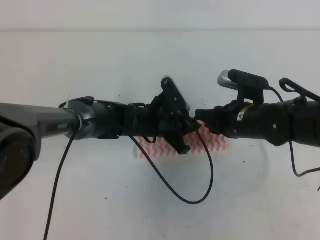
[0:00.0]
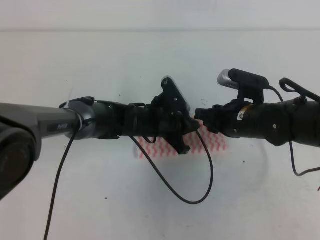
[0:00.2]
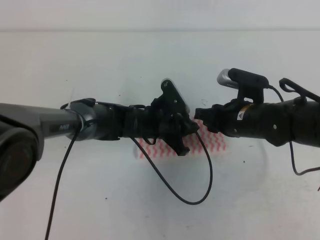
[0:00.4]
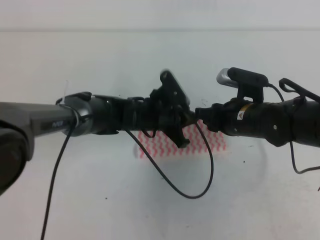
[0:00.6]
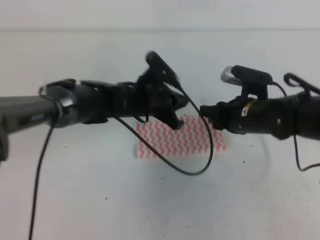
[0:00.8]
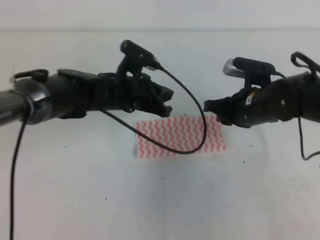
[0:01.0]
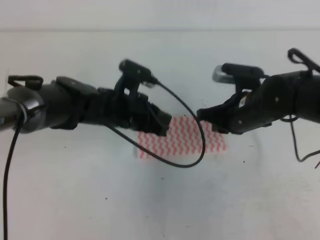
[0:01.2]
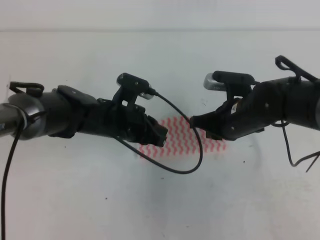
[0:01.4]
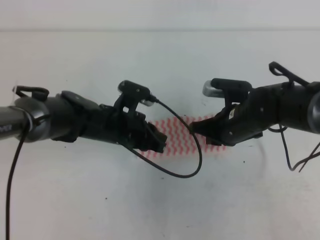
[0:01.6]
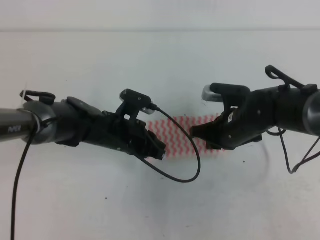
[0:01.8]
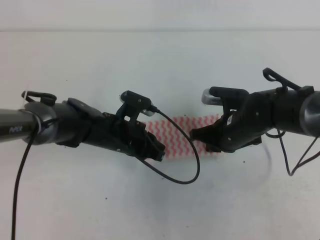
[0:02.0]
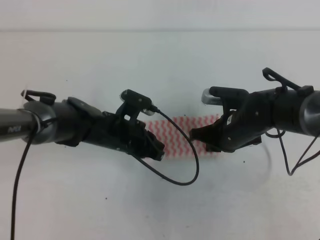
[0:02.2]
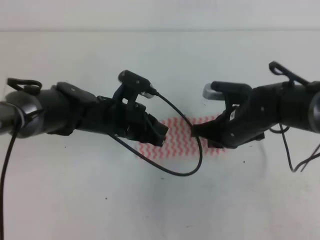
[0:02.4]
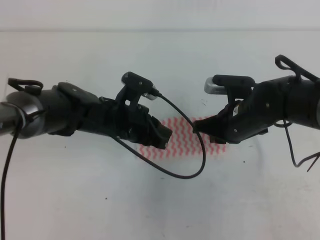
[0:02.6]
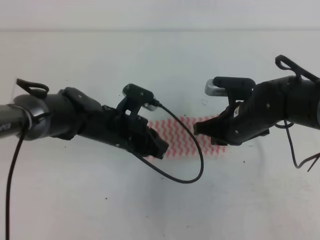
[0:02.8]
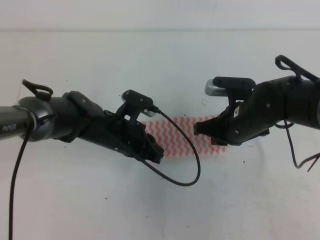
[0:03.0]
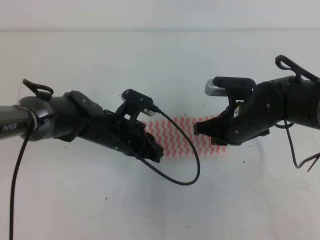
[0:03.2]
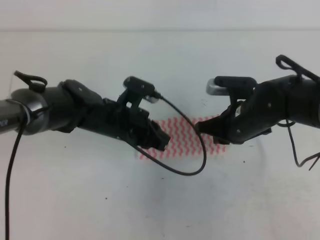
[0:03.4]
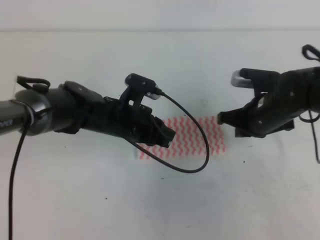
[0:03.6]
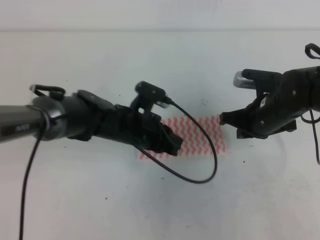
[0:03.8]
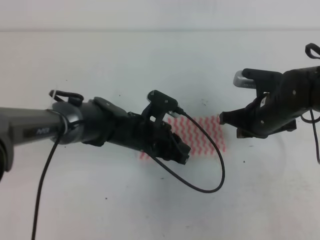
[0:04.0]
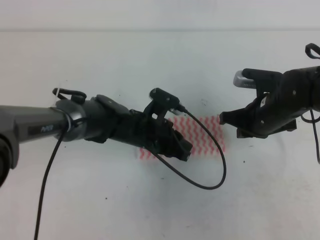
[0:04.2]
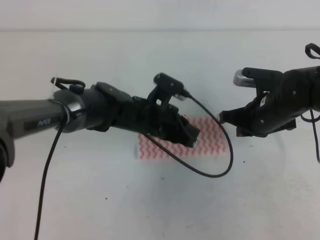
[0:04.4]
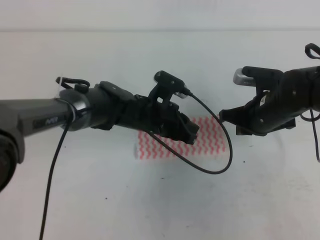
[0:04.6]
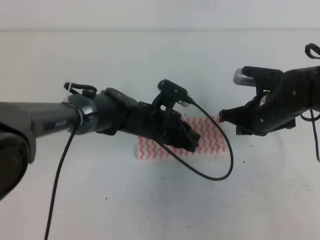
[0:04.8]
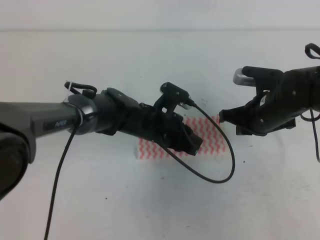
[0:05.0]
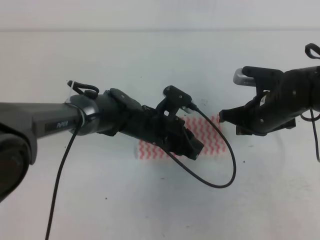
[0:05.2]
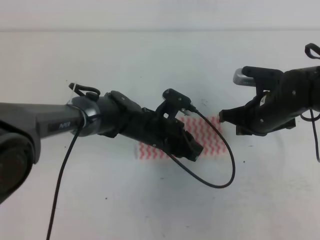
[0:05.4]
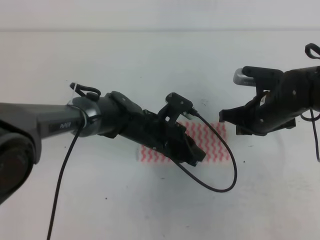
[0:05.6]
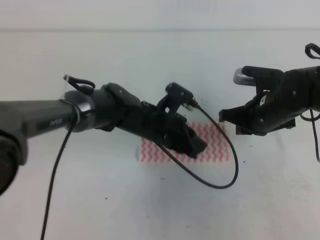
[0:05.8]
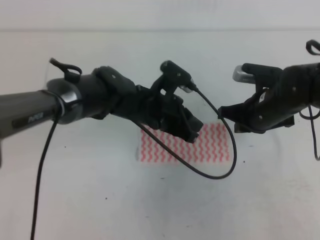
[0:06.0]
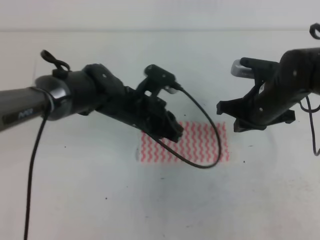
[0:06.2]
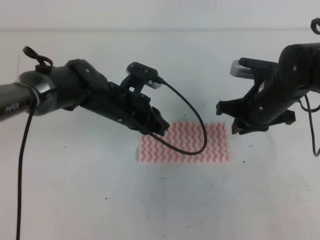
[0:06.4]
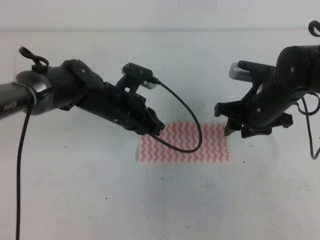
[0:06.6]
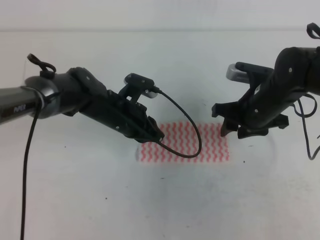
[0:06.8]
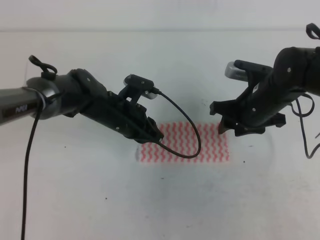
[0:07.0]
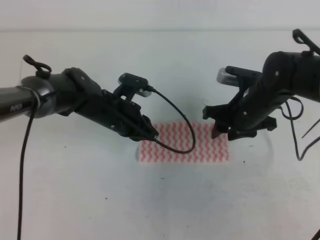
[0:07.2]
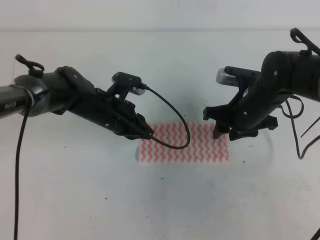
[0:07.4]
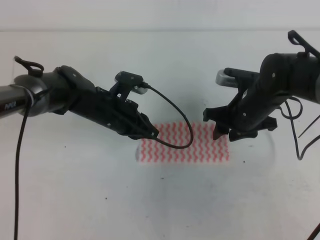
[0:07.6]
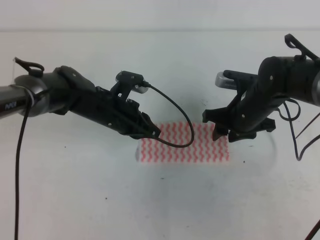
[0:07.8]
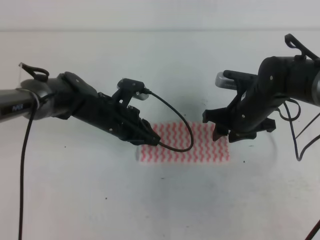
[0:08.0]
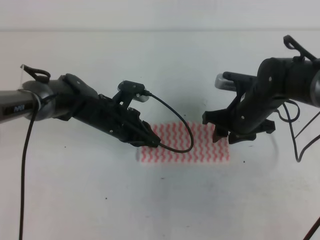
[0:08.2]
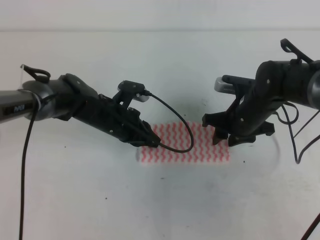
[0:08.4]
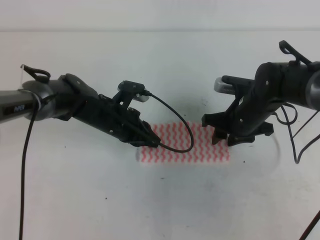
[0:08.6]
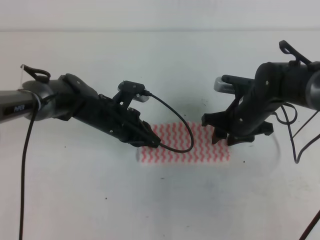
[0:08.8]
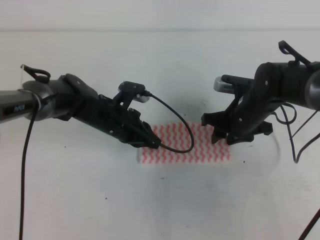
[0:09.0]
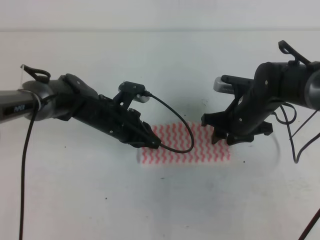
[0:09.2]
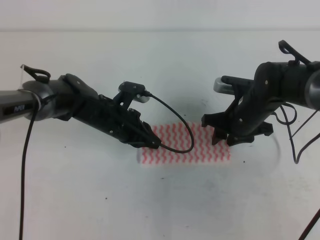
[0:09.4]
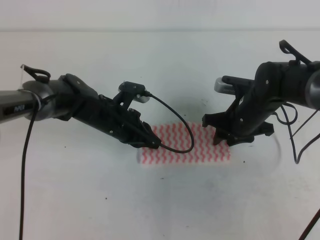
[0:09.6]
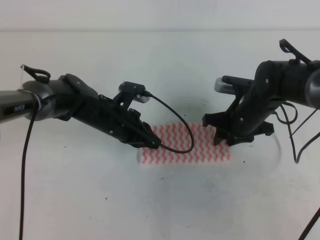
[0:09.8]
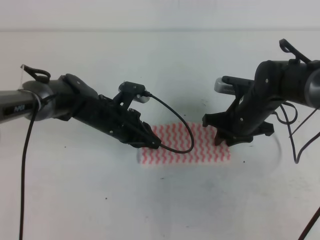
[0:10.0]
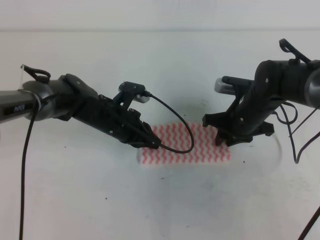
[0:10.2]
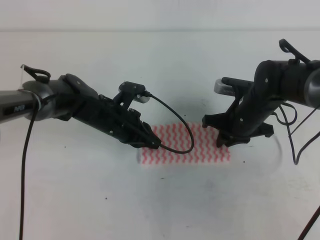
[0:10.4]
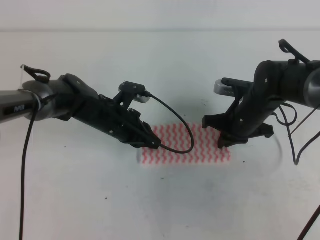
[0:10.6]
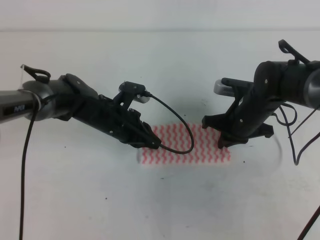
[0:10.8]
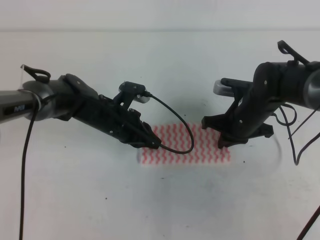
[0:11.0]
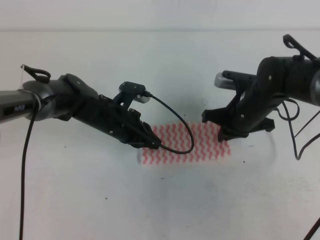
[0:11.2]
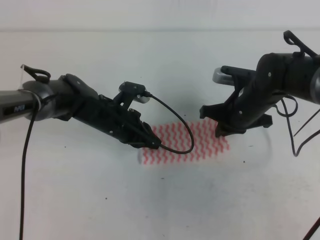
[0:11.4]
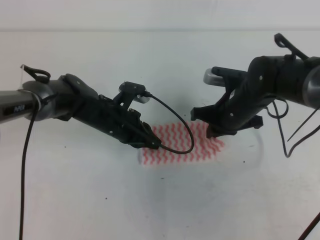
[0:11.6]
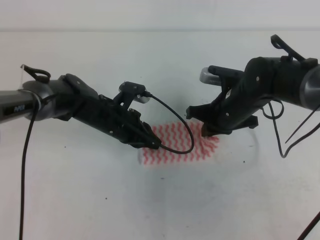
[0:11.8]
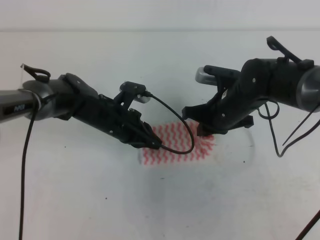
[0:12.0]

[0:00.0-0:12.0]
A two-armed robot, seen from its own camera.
Step, 0:00.0 to 0:05.8: Fold the towel from right to left with the right gripper.
Step, 0:06.0 to 0:10.6: Tidy up the towels.
0:00.0 to 0:01.6: The right gripper closes up, while the left gripper moves to the left, roughly 5 cm.
0:01.6 to 0:03.0: The grippers move only a little.
0:03.0 to 0:04.4: The left gripper is displaced to the right by about 5 cm.
0:04.4 to 0:06.0: The grippers move only a little.
0:06.0 to 0:07.6: The right gripper opens its fingers; the left gripper shifts some 5 cm to the left.
0:07.6 to 0:09.0: There are only small adjustments of the grippers.
0:09.0 to 0:10.4: The right gripper closes its fingers.
0:10.4 to 0:12.0: The right gripper changes place by roughly 5 cm, and closes its fingers.

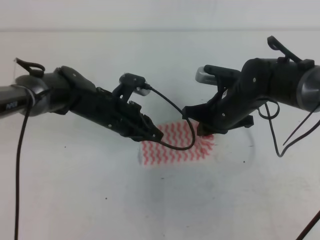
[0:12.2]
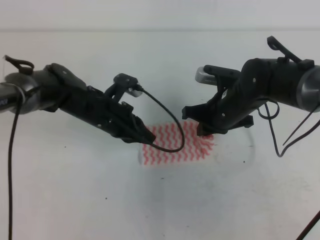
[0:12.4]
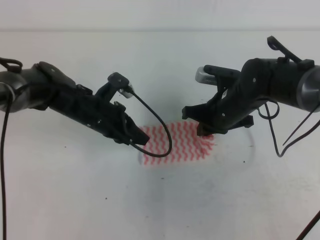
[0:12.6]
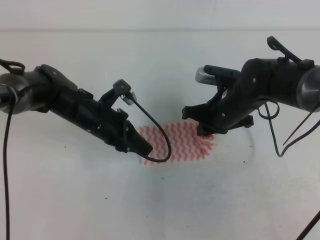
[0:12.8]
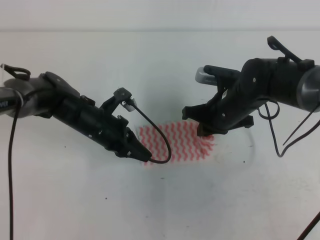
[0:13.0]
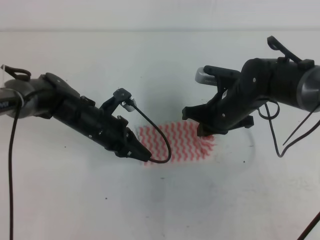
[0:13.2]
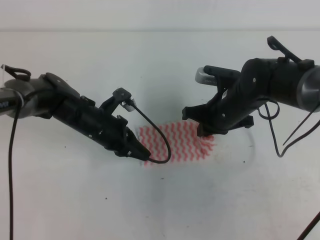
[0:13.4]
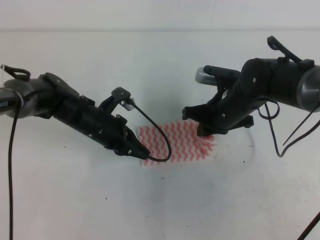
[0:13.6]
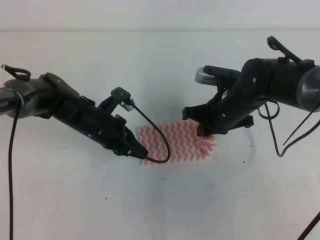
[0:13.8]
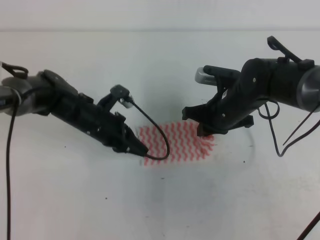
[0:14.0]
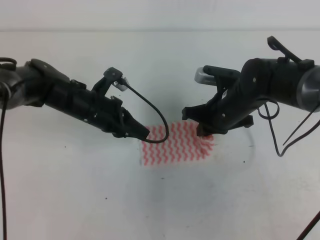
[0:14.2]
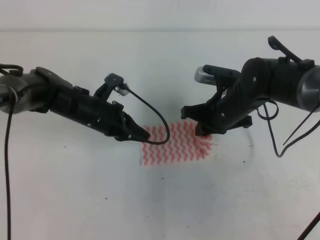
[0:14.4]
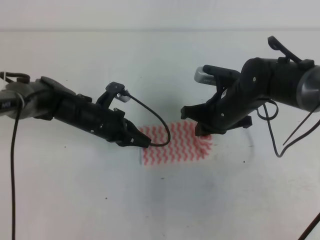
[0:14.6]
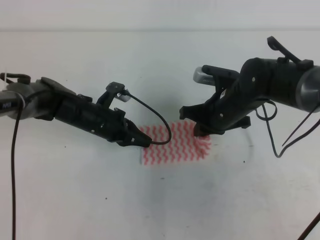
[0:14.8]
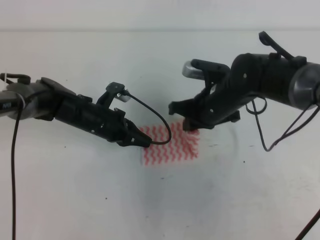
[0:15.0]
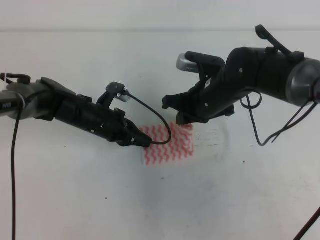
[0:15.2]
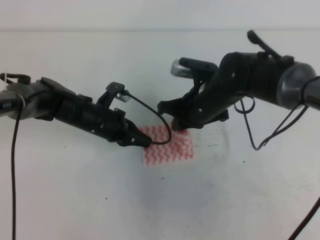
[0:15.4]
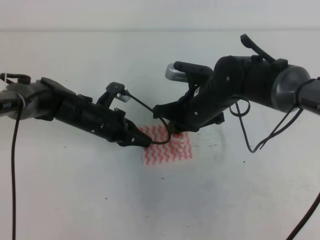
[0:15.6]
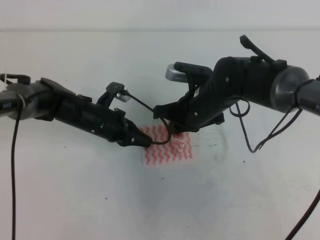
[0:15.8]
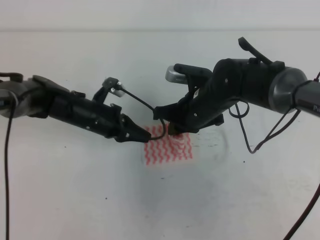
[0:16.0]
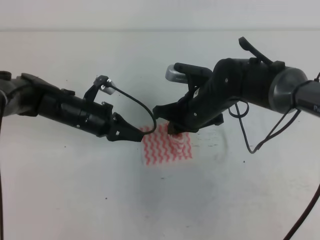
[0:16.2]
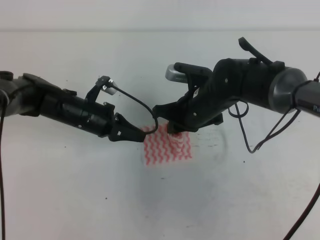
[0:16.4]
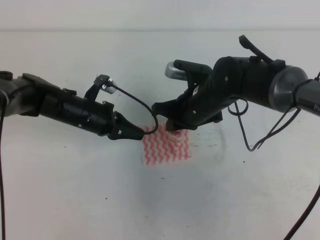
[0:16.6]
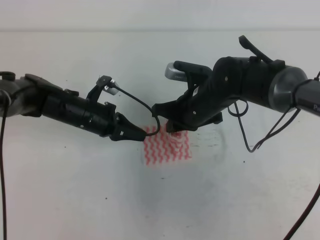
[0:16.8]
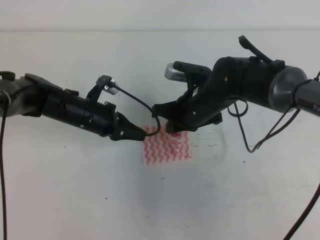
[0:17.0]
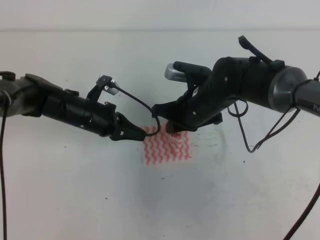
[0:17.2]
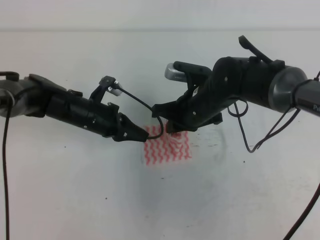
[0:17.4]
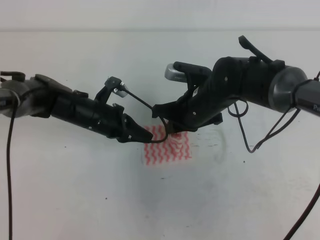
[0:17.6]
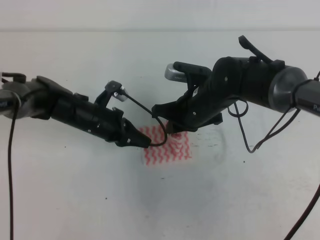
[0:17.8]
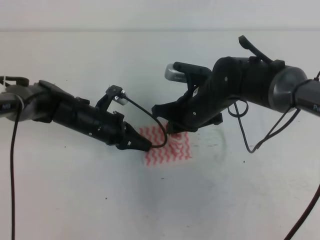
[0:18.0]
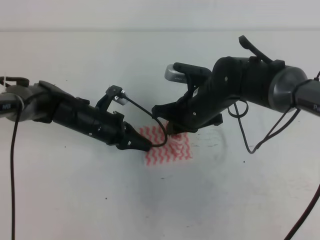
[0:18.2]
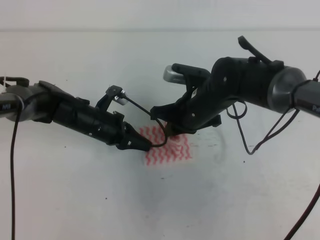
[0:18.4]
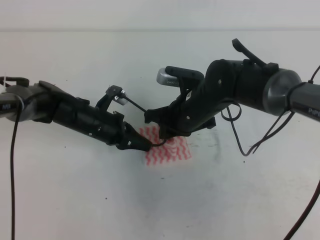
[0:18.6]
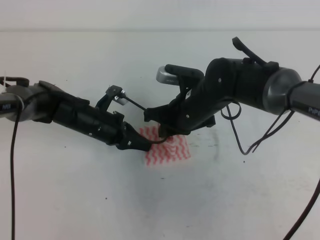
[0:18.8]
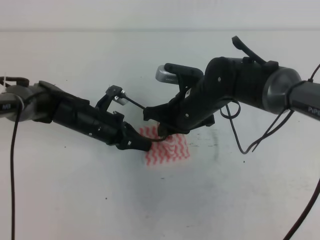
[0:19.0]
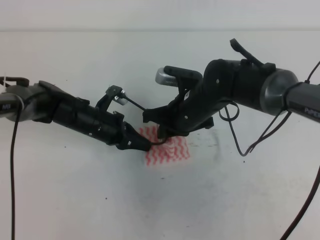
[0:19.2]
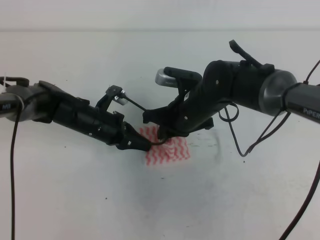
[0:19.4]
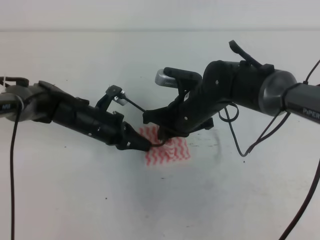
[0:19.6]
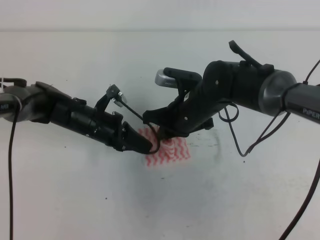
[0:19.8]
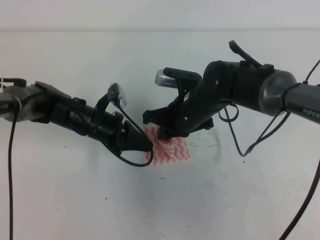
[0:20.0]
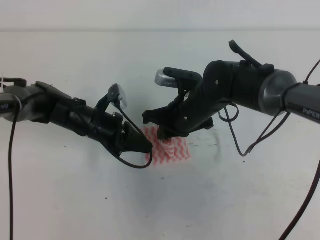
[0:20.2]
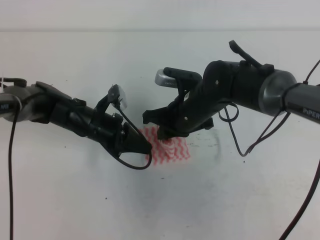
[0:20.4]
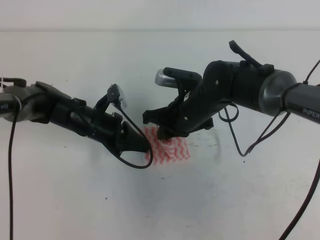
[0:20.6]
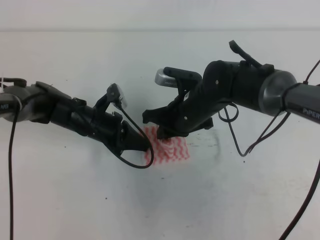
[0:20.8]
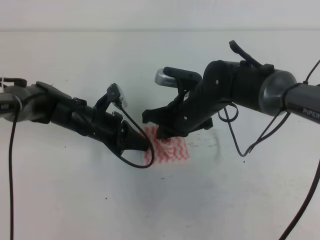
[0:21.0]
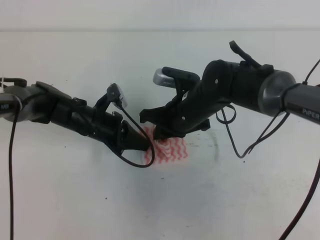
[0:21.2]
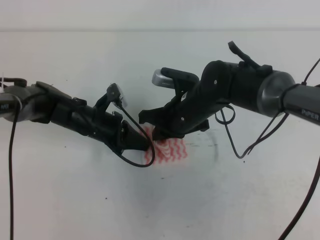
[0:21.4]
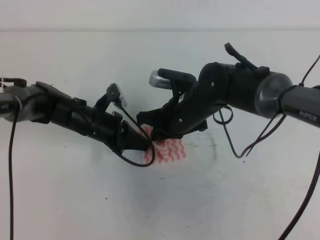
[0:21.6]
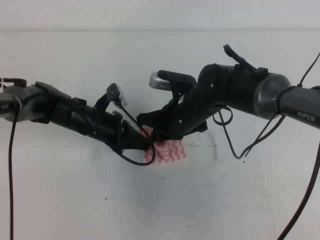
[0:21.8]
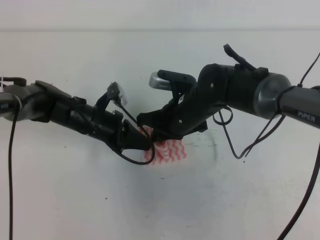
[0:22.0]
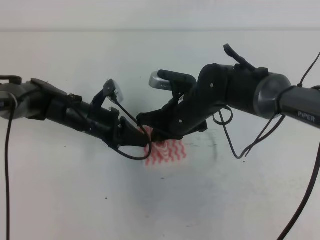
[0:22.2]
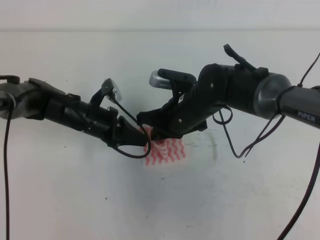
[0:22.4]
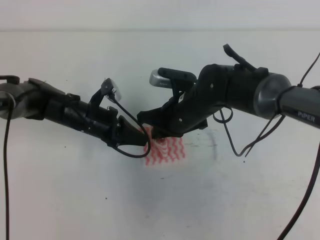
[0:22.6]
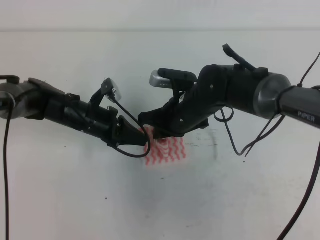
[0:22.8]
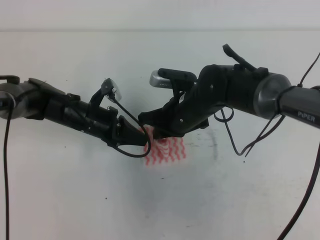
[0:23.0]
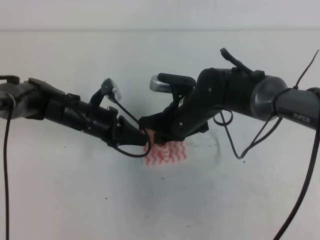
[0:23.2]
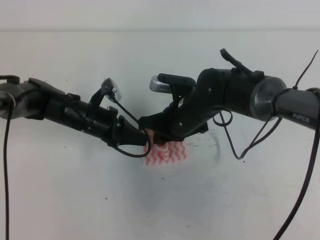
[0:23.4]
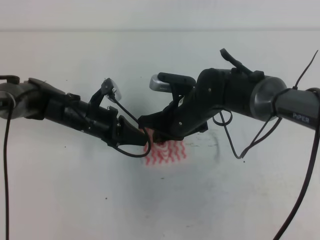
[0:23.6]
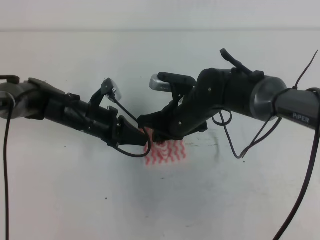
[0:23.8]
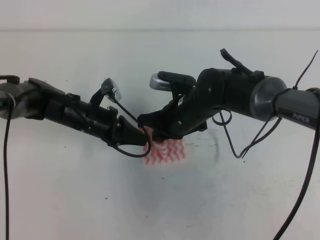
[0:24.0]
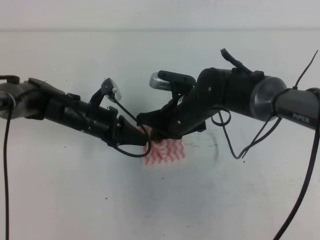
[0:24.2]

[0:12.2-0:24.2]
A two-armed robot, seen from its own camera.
0:12.2 to 0:18.2: The grippers move only a little.
0:18.2 to 0:21.2: The grippers make only small movements.
0:21.2 to 0:22.6: Both grippers stay put.
0:22.6 to 0:24.2: Neither gripper changes place.
